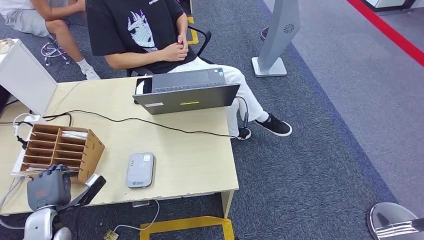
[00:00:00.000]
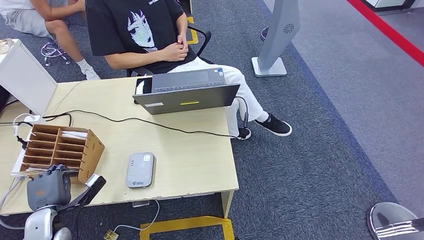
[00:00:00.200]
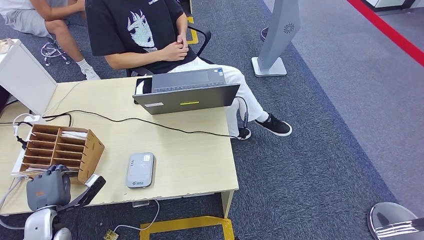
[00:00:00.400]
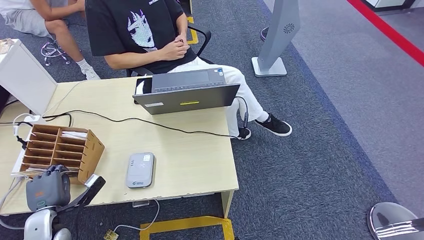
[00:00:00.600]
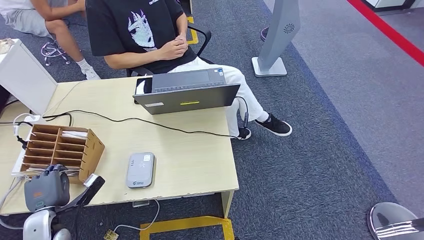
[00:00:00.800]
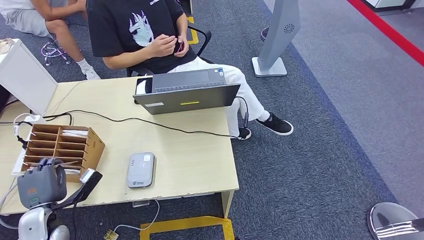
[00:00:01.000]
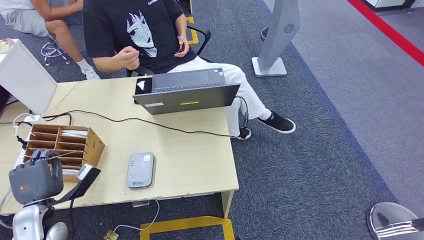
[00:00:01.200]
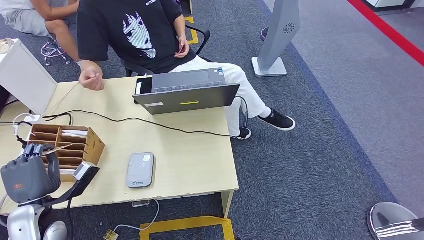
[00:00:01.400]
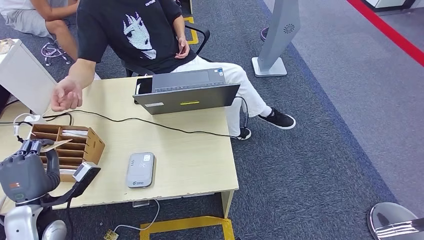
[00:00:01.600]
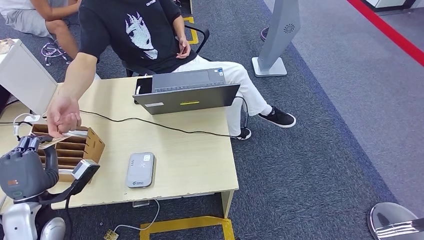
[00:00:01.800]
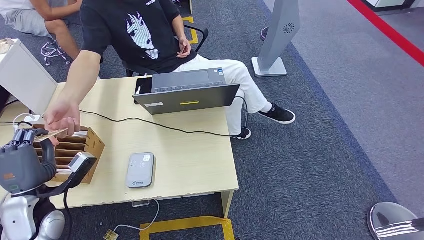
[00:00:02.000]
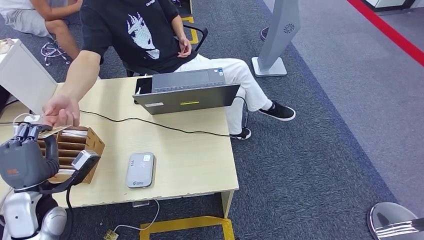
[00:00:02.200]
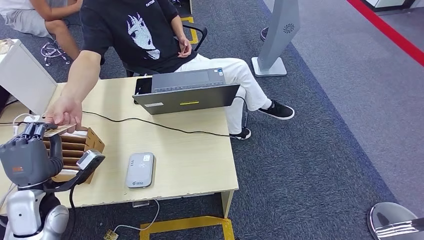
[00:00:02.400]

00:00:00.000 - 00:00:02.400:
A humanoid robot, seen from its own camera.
Step, 00:00:01.800 - 00:00:02.400: Hand the room key to the person.
00:00:00.000 - 00:00:01.200: The left hand shifts by about 5 cm.
00:00:01.200 - 00:00:02.400: The left hand heads upward, covering approximately 5 cm.
